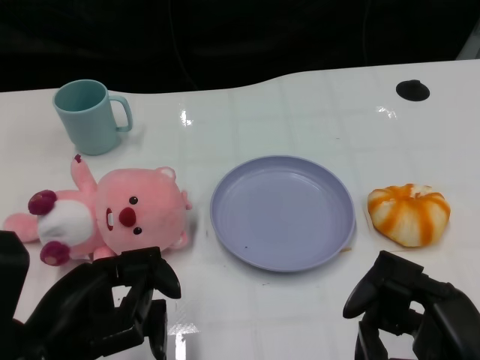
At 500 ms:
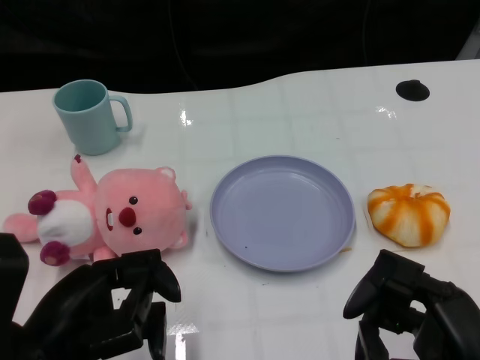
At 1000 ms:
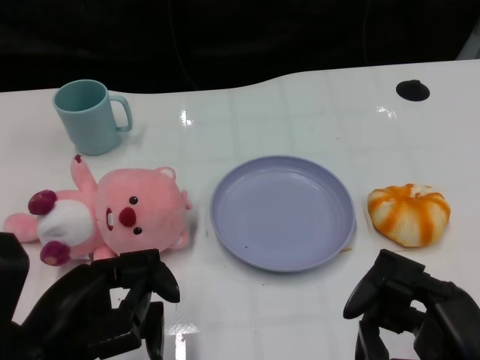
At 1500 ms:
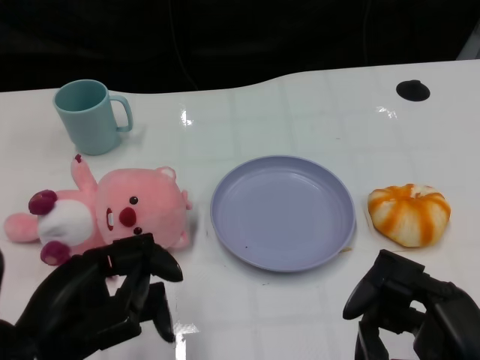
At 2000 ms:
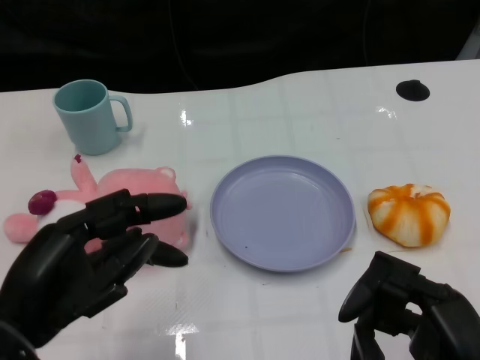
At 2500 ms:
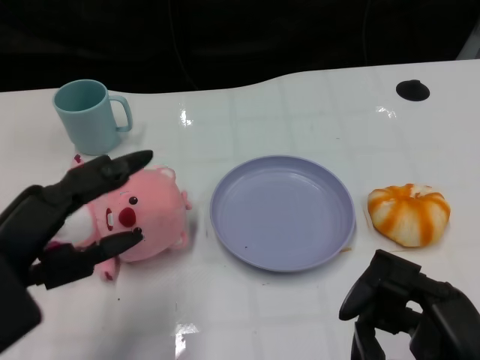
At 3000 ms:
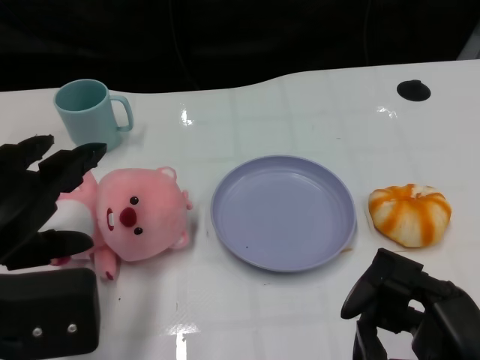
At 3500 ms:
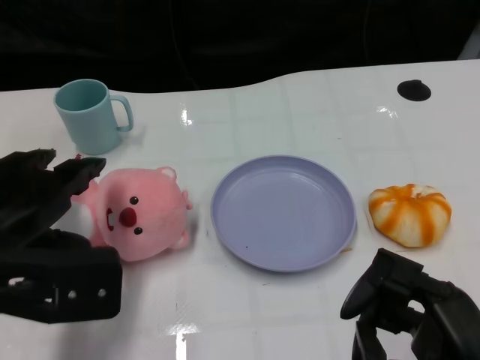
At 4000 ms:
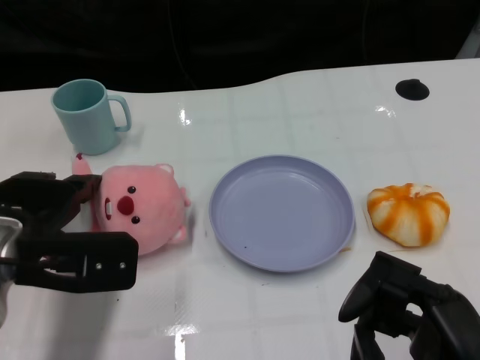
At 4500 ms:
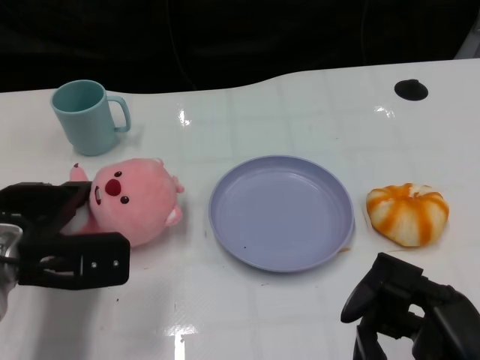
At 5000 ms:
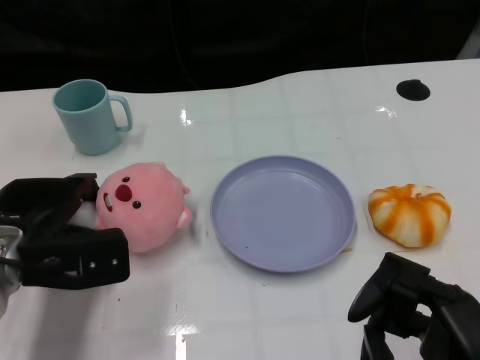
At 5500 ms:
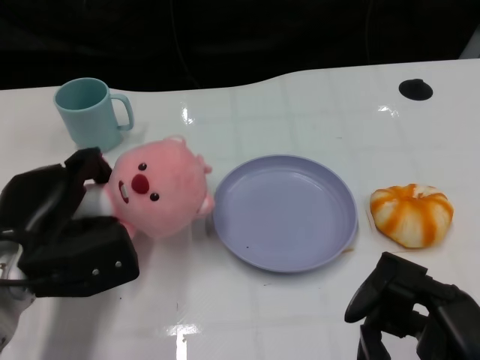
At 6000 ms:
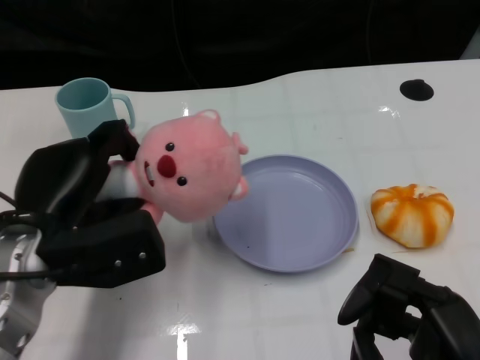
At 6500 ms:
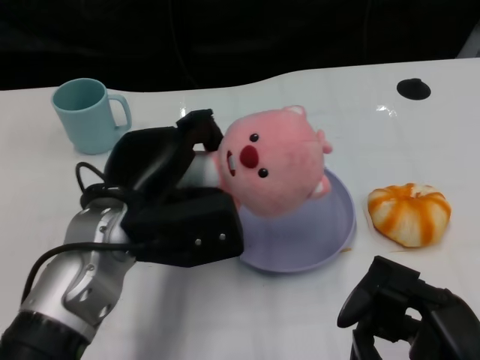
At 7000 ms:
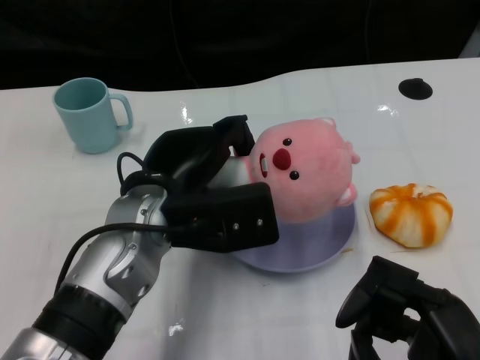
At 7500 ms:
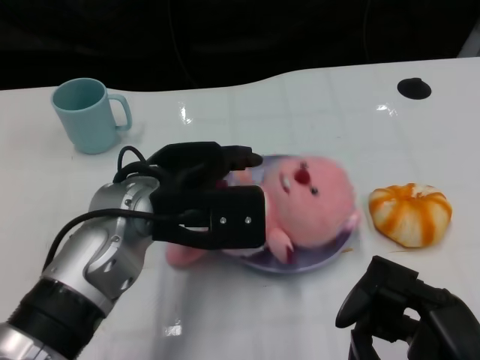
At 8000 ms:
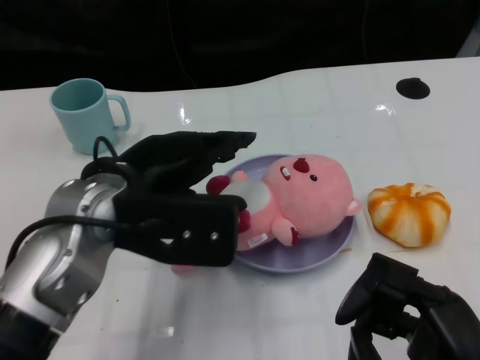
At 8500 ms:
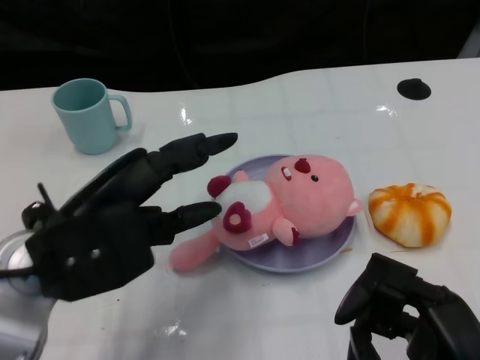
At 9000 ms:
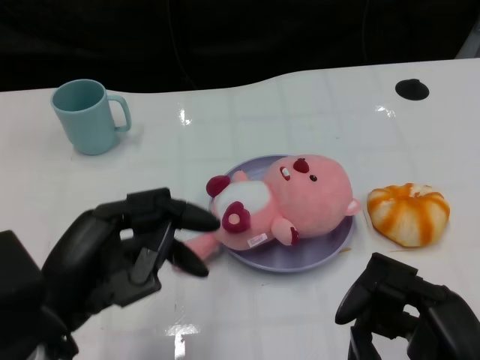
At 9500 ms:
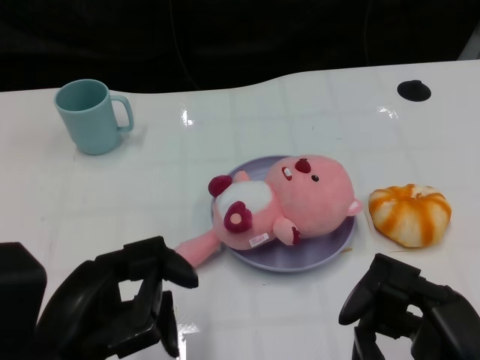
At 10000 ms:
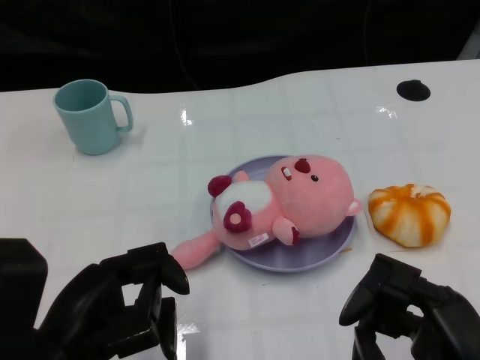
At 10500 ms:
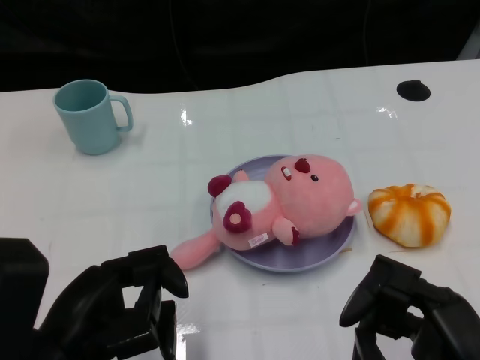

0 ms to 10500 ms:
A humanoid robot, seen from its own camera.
Task of the whole recording: Pick up the doll on one side of the plate and place it into the plate.
Step, 1500 ms to 5000 ms: Grasp the pink doll with the left gripper.
Step, 5500 ms to 7500 ms: Place the pink doll into the plate with the left gripper.
2000 ms to 4000 ms: The left hand is displaced forward by approximately 10 cm.
4000 ms to 6500 ms: The left hand goes roughly 10 cm to the right.
6500 ms to 8500 ms: The left hand heads to the left, covering about 5 cm.
8500 ms to 10500 ms: The left hand moves backward and downward, about 10 cm.
